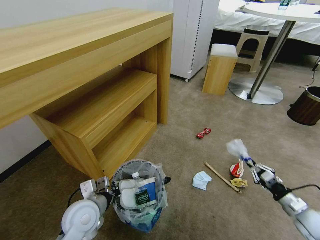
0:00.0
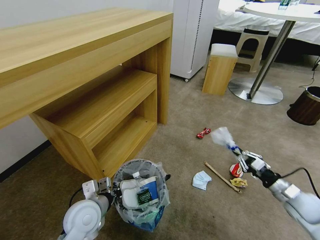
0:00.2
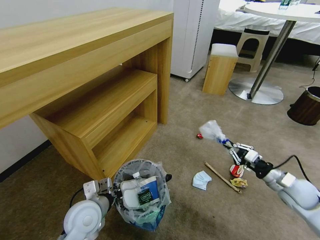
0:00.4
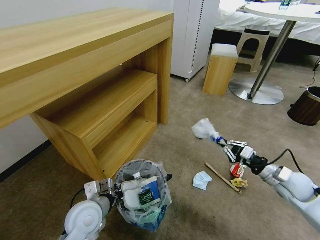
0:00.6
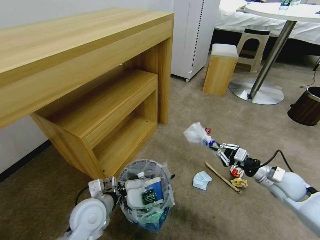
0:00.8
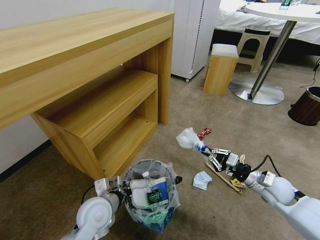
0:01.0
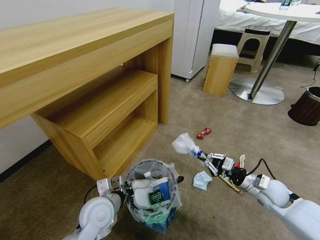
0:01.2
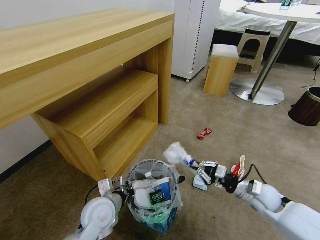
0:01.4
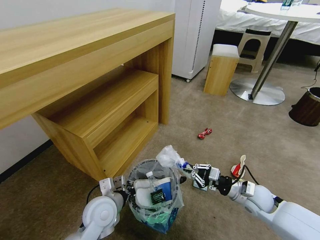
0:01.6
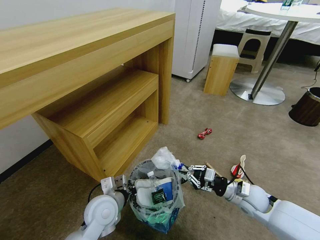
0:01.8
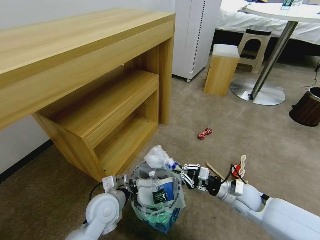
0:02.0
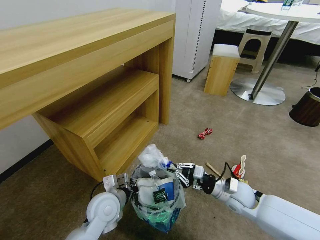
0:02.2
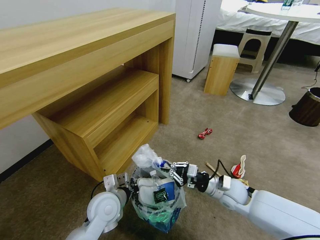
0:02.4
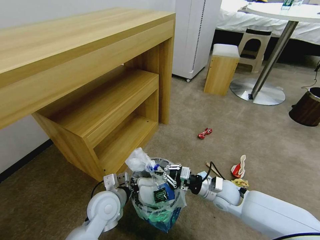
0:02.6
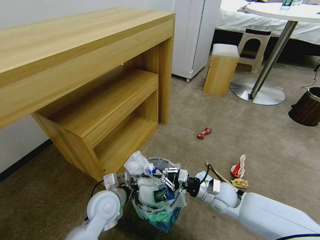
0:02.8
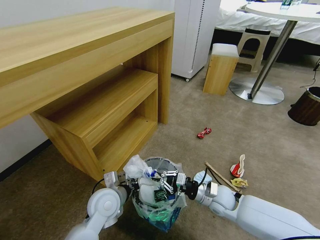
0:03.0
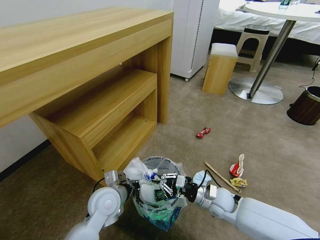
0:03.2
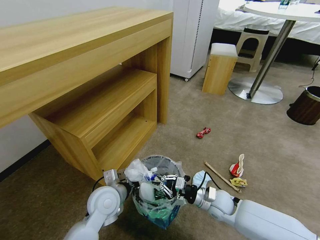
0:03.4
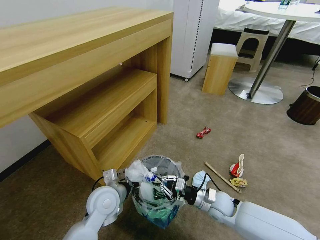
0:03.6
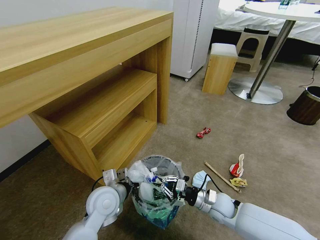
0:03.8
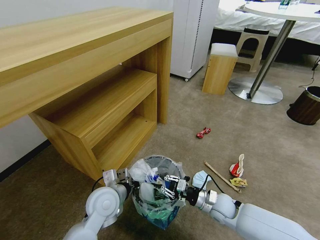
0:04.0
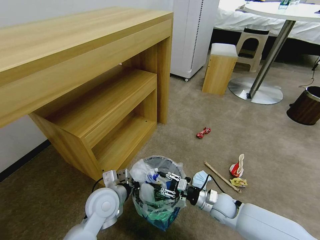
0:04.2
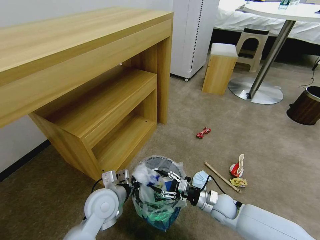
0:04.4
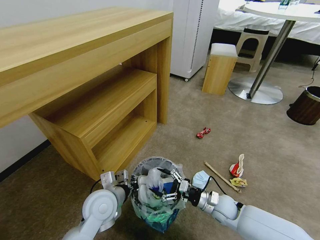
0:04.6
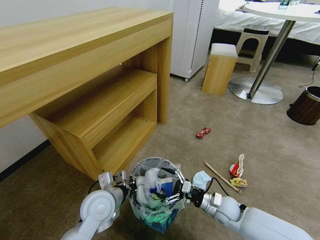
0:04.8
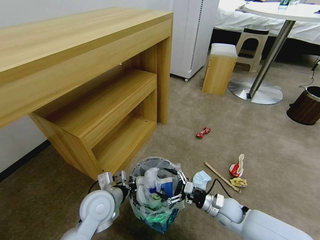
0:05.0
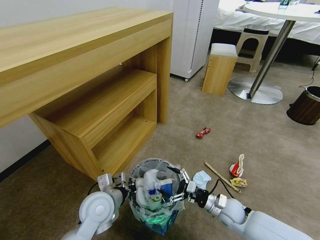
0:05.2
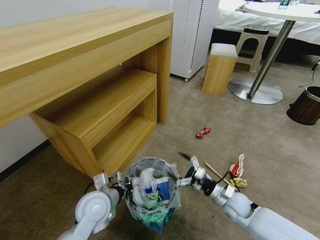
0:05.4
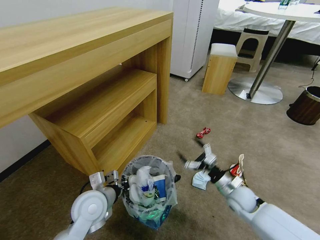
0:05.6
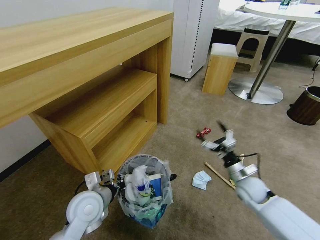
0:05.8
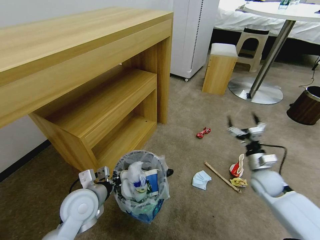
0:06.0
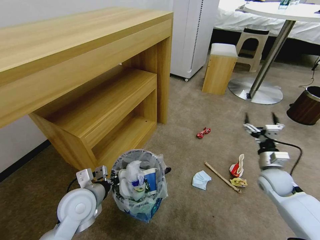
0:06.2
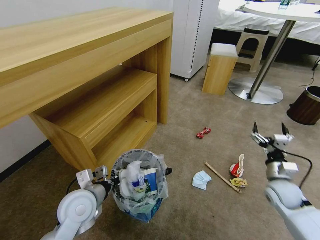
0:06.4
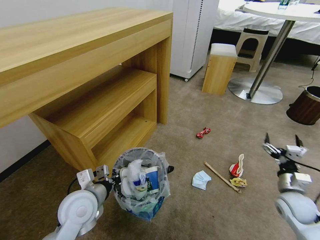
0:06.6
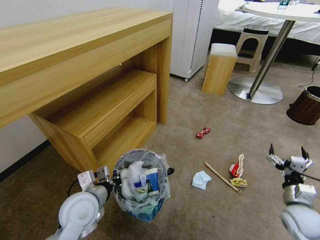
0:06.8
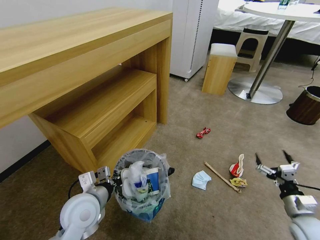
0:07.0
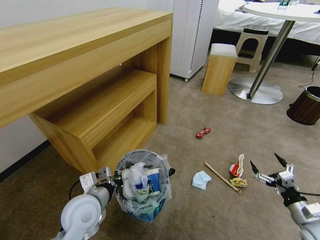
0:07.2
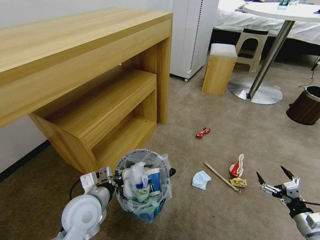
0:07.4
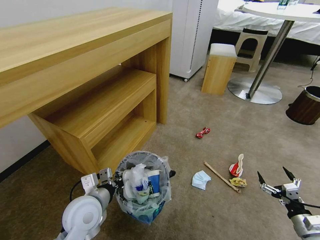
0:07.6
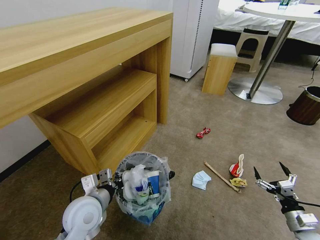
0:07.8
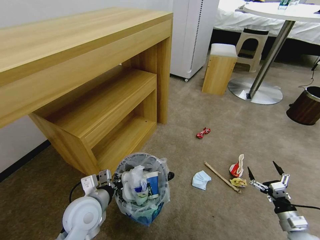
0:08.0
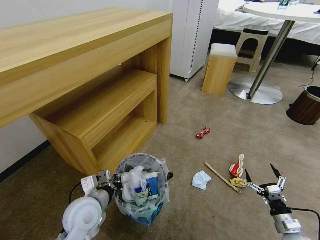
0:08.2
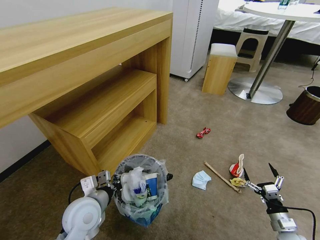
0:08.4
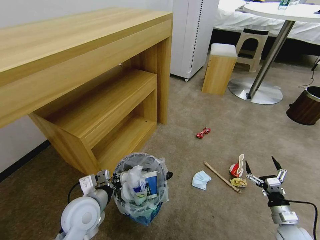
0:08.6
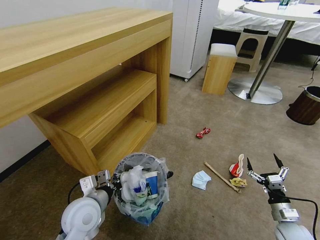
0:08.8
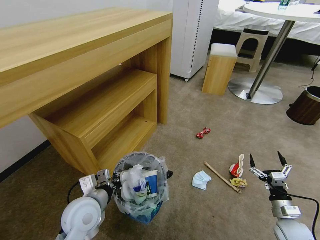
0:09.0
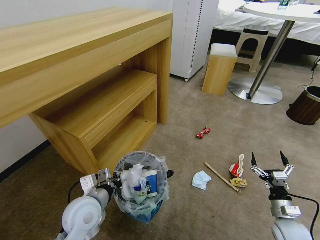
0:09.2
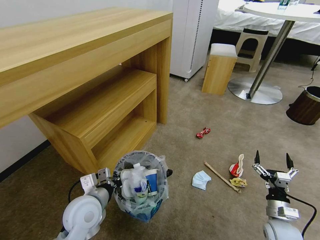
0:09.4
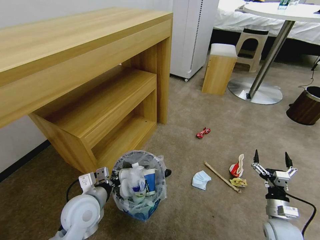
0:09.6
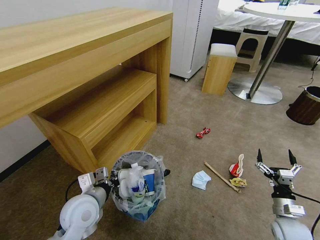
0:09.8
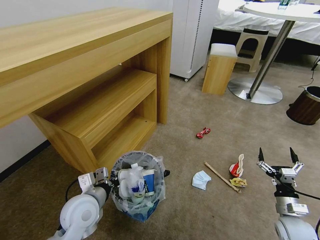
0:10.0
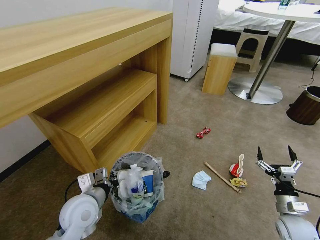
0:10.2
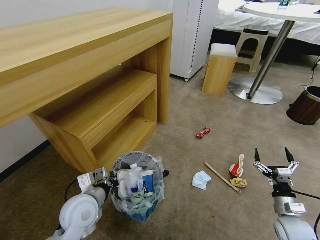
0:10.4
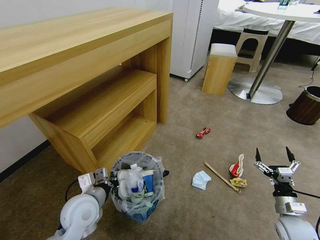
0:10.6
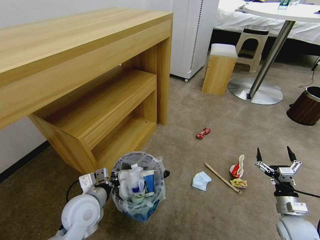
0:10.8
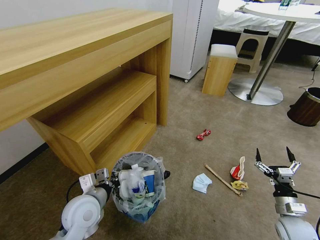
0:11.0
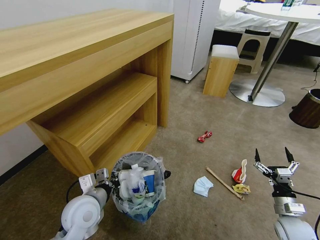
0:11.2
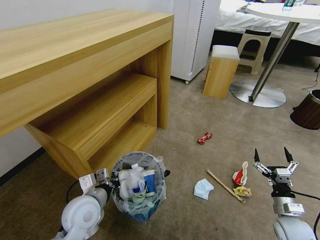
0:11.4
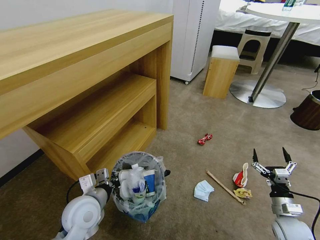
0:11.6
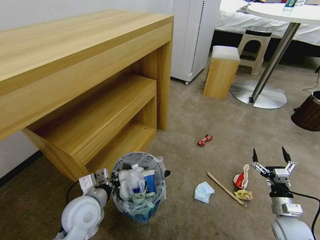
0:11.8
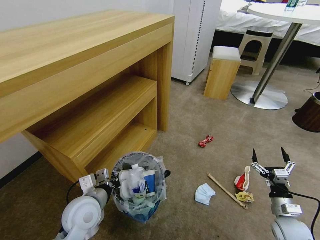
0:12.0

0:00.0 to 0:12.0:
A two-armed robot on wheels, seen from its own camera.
Task of the whole recording: Pick up the trash bin and place the garbage on the floor into it.
0:00.0 to 0:01.6: The right gripper moves to the left and forward, about 20 cm.
0:01.6 to 0:03.0: The right gripper moves to the left, some 10 cm.
0:03.0 to 0:04.4: The right gripper opens up.
0:04.4 to 0:06.0: The right gripper shifts about 15 cm to the right, upward and forward, while the left gripper moves about 5 cm.
0:06.0 to 0:07.6: The right gripper goes roughly 25 cm backward and to the right.
0:07.6 to 0:09.0: The right gripper shifts about 5 cm forward.
0:09.0 to 0:10.4: There are only small adjustments of the grippers.

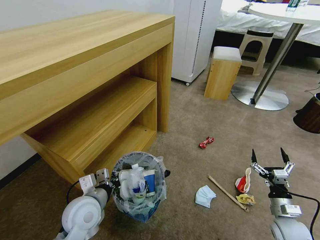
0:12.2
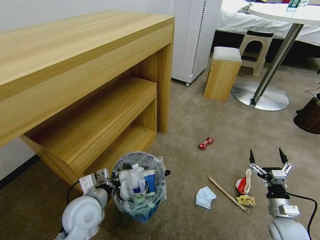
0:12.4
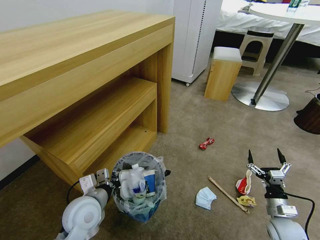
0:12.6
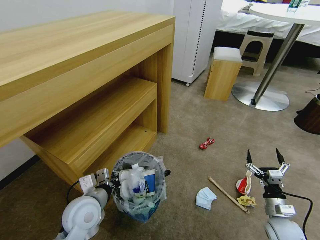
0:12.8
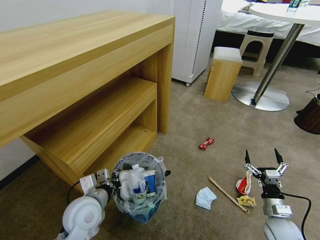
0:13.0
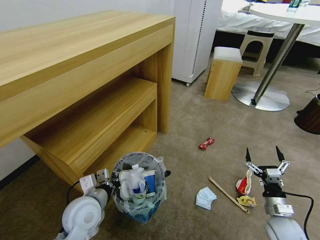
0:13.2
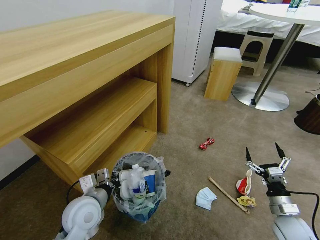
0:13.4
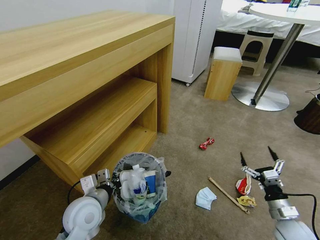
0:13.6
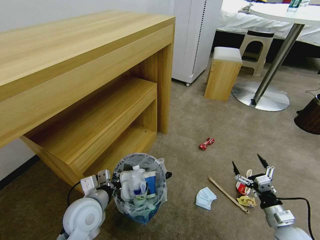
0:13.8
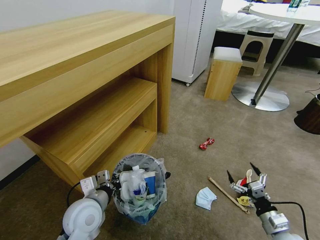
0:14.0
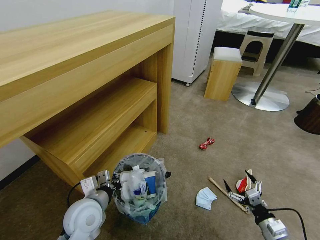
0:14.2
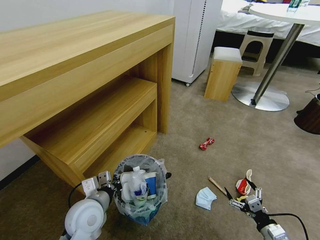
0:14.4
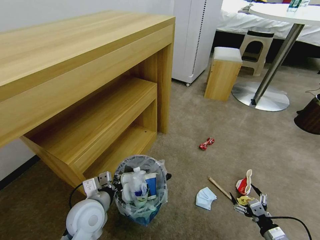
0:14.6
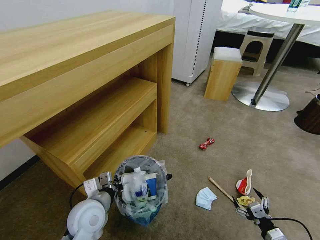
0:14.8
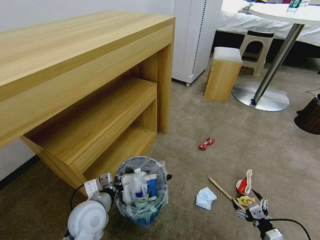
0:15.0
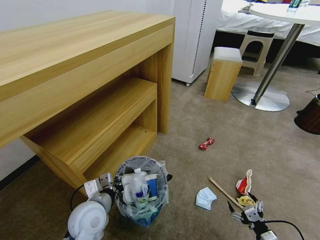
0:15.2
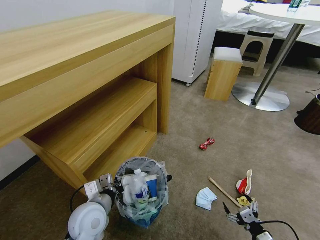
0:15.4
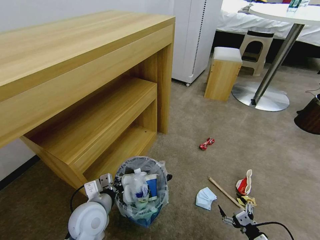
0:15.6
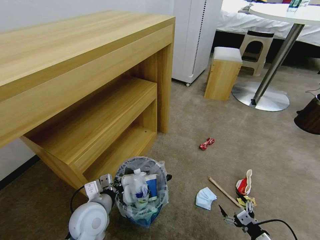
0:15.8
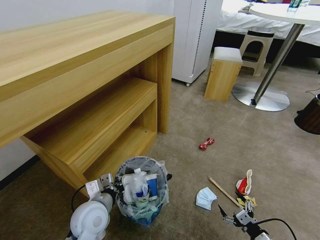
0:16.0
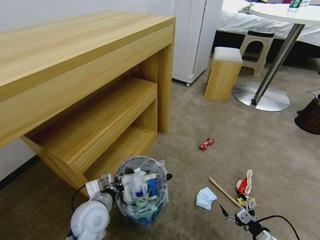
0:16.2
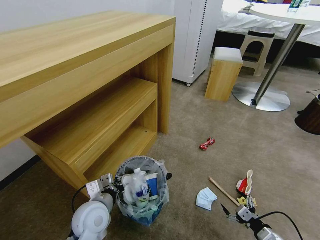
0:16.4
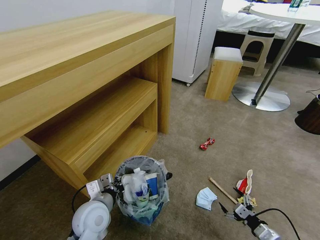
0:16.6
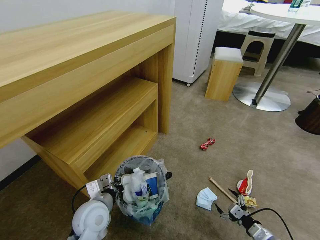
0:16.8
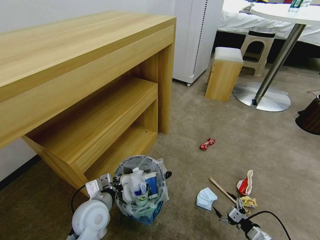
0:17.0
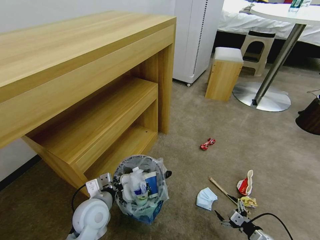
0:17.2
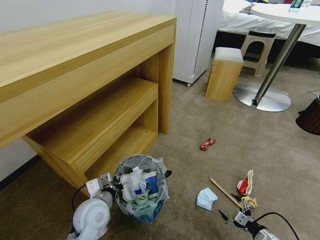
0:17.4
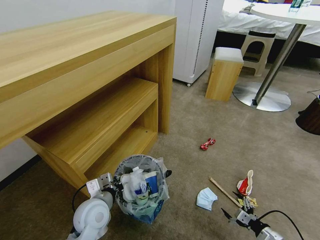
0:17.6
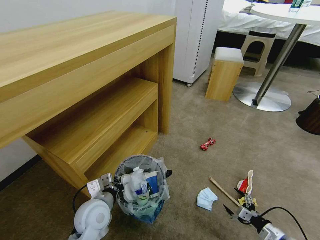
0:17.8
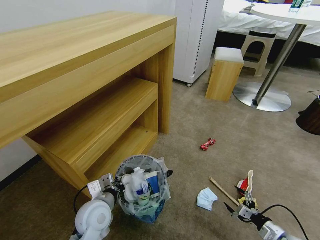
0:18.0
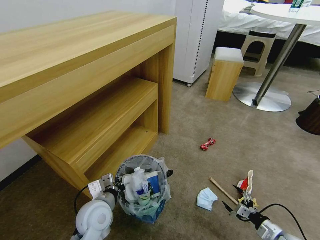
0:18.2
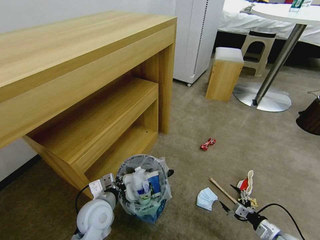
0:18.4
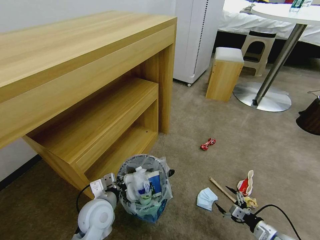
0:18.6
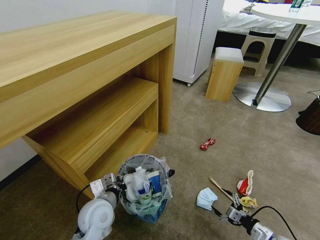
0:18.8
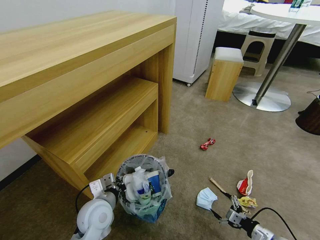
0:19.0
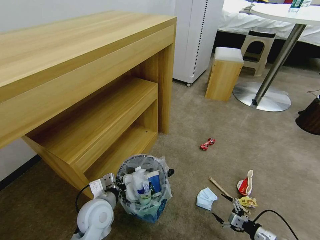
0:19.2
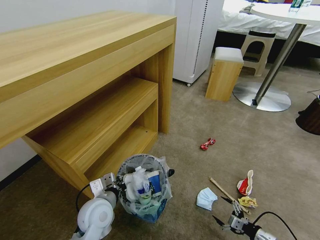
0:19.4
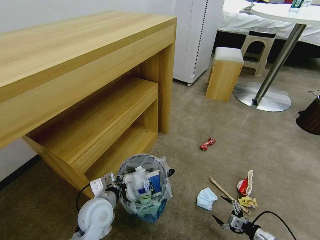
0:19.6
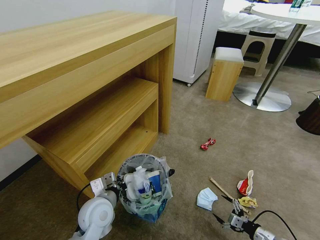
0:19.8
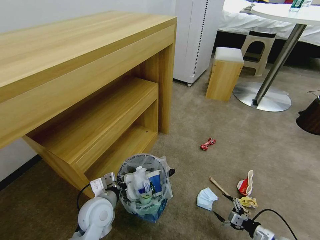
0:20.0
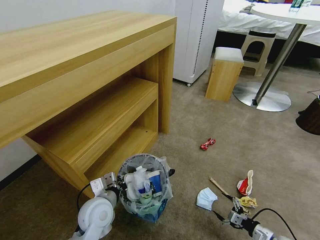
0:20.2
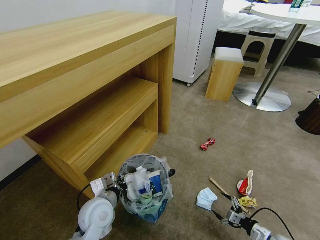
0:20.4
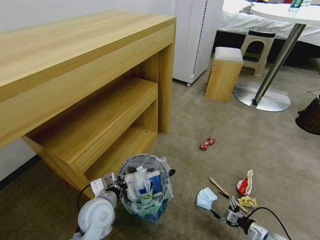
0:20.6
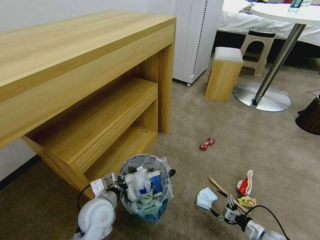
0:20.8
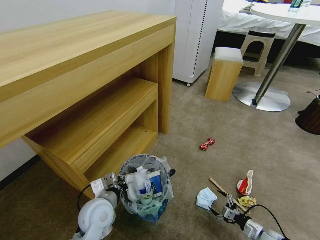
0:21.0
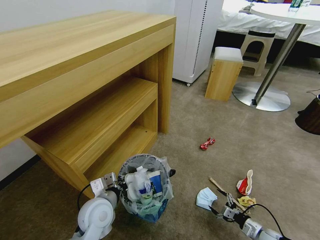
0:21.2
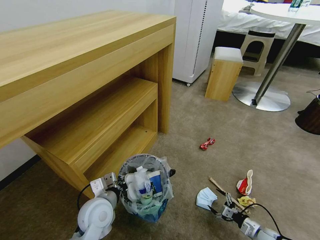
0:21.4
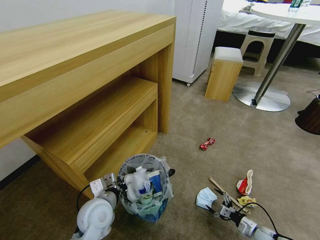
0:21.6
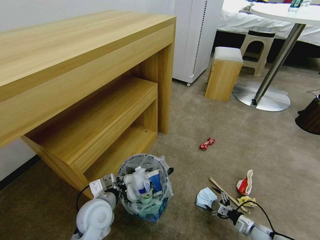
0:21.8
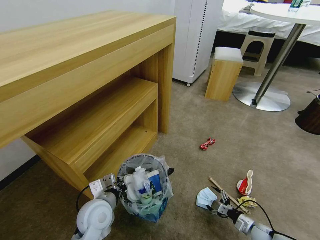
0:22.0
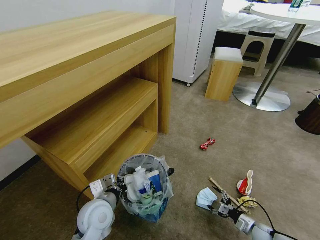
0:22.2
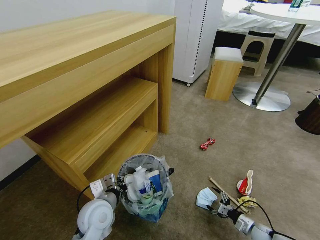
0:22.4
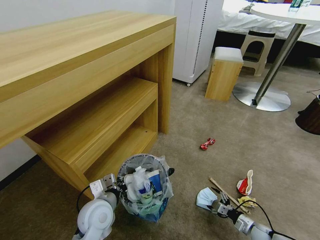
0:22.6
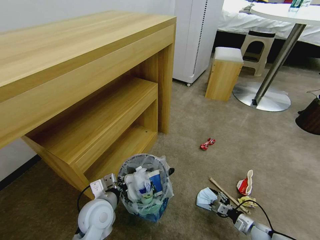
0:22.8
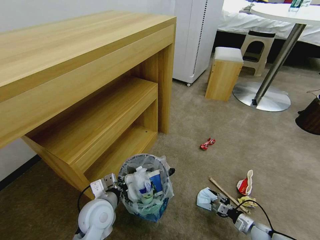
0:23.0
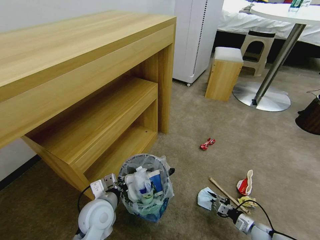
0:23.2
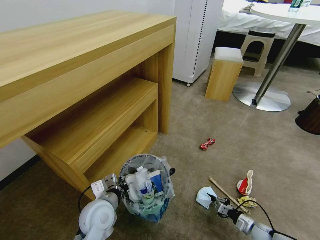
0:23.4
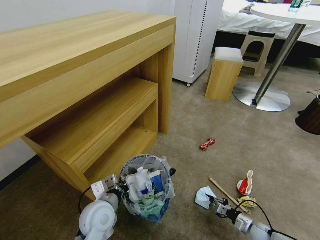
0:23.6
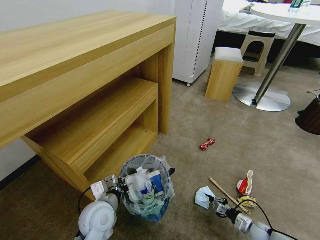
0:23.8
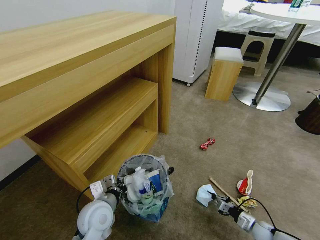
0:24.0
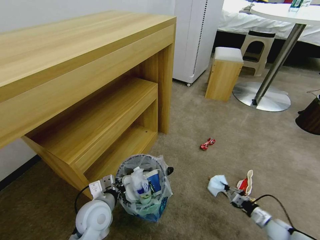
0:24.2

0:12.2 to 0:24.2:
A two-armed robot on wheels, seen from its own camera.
Task of the whole recording: Pick up the trash bin and place the garbage on the floor into it.
0:12.2 to 0:13.8: The grippers make only small movements.
0:13.8 to 0:15.2: The right gripper is displaced backward and downward by about 10 cm.
0:15.2 to 0:16.6: The grippers stay close to where they were, moving slightly.
0:16.6 to 0:18.2: The right gripper ends up some 5 cm from where it was.
0:18.2 to 0:19.8: The grippers make only small movements.
0:19.8 to 0:21.2: The right gripper heads downward, covering some 5 cm.
0:21.2 to 0:22.6: There are only small adjustments of the grippers.
0:22.6 to 0:24.2: The right gripper shifts by some 5 cm, and closes.
